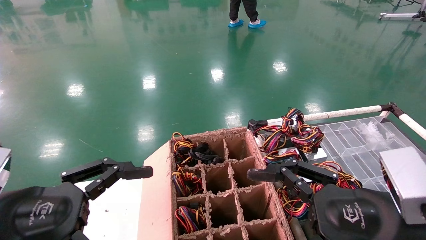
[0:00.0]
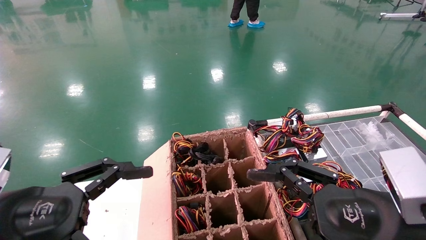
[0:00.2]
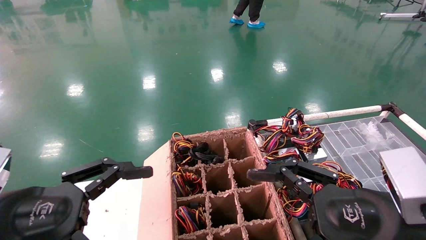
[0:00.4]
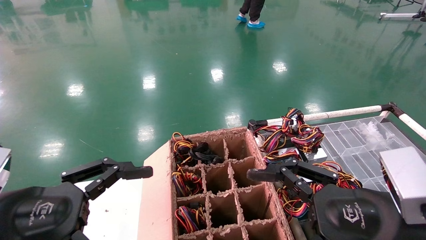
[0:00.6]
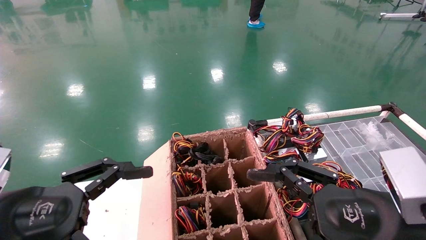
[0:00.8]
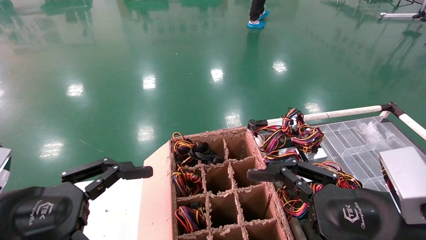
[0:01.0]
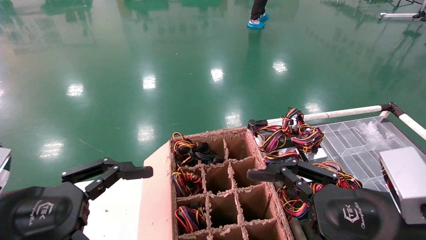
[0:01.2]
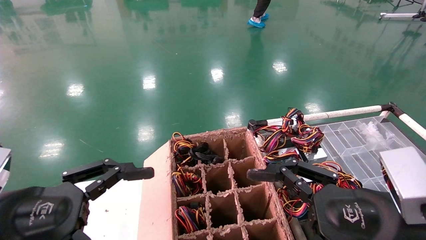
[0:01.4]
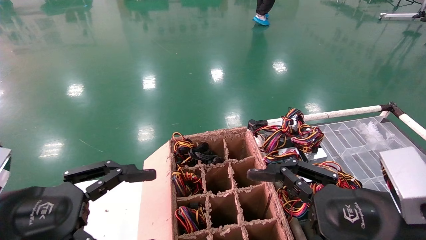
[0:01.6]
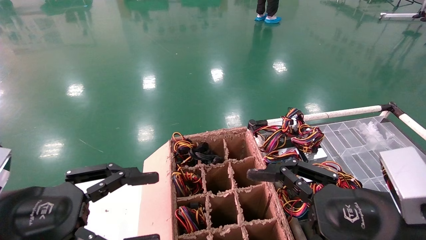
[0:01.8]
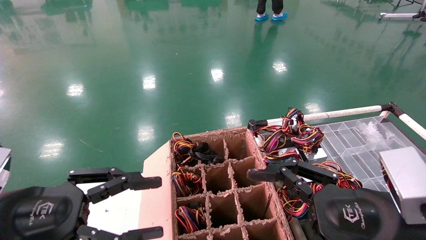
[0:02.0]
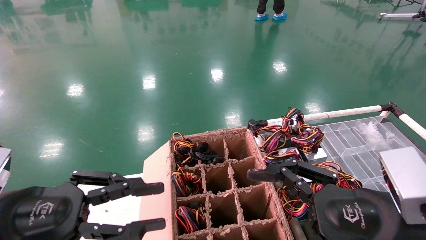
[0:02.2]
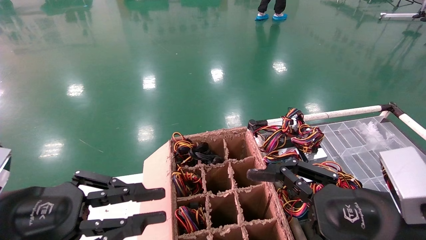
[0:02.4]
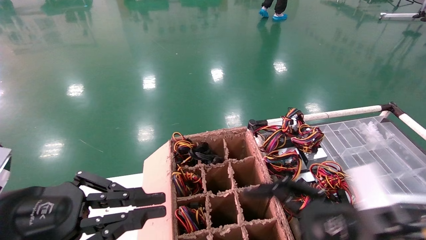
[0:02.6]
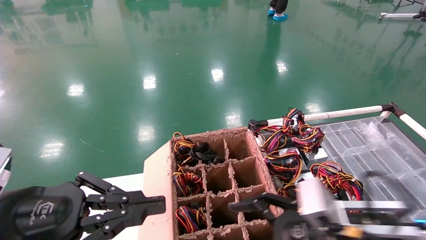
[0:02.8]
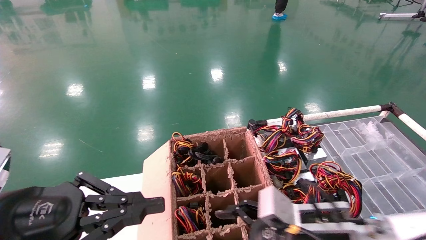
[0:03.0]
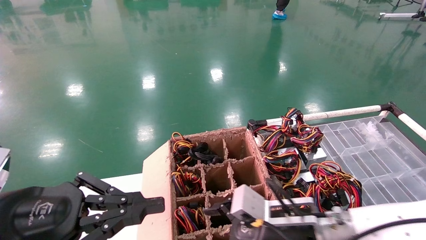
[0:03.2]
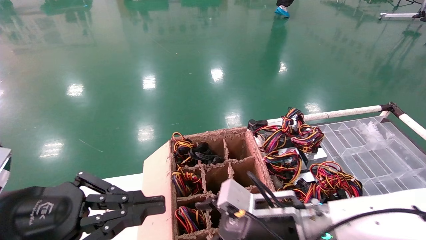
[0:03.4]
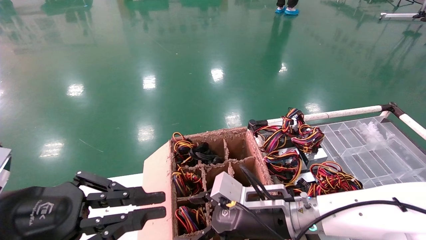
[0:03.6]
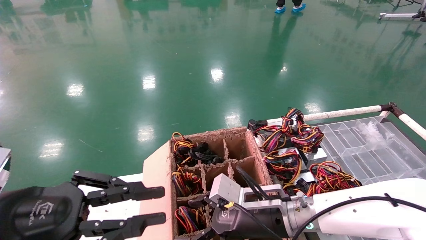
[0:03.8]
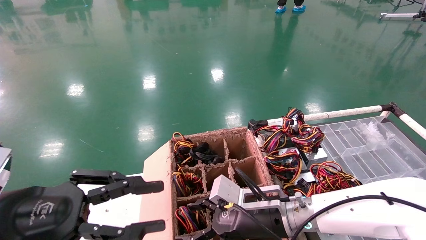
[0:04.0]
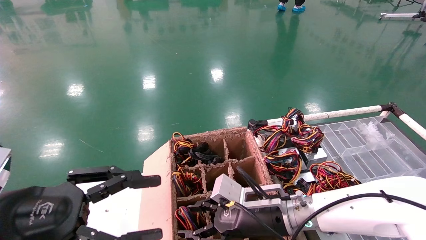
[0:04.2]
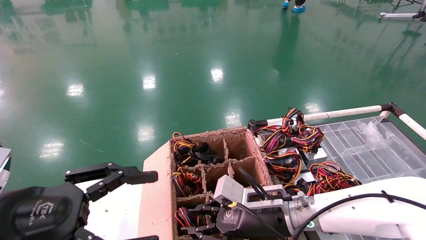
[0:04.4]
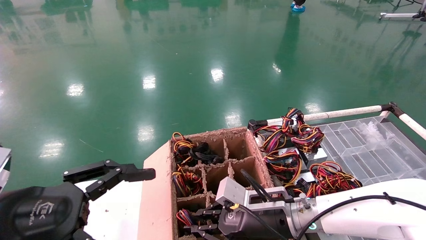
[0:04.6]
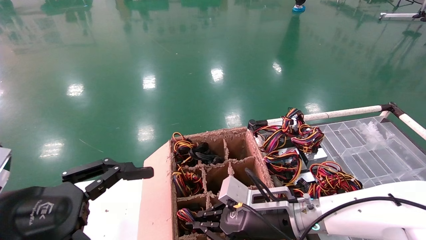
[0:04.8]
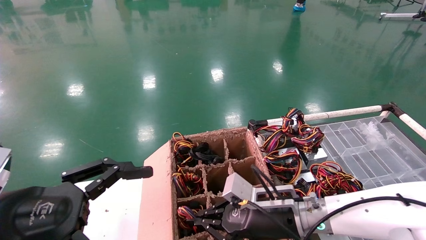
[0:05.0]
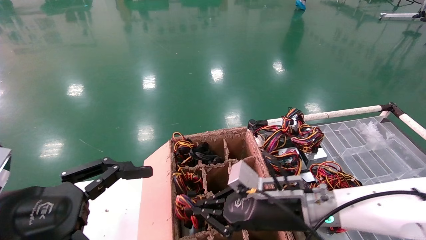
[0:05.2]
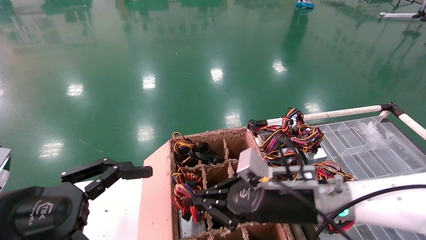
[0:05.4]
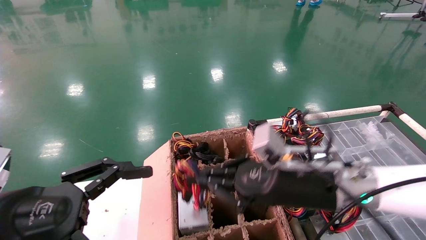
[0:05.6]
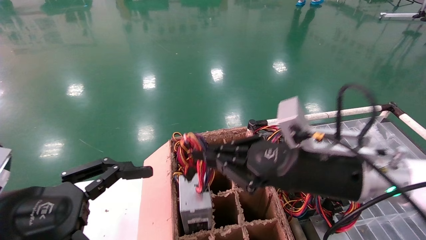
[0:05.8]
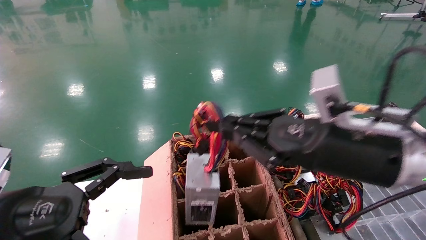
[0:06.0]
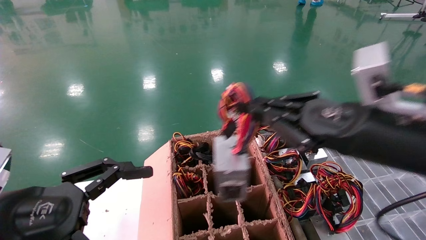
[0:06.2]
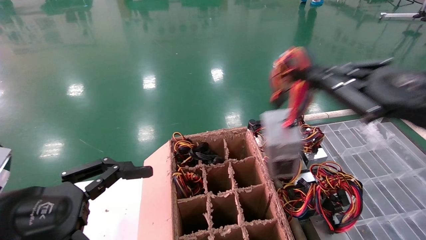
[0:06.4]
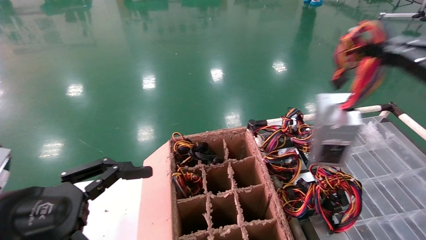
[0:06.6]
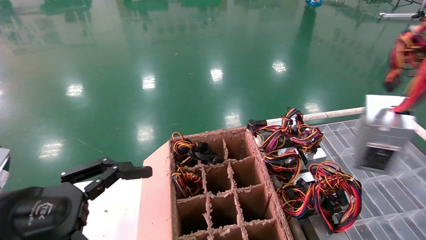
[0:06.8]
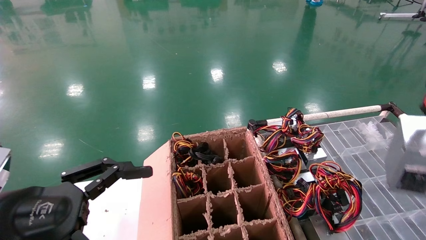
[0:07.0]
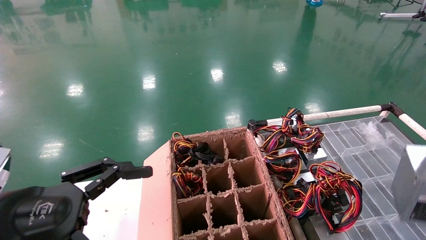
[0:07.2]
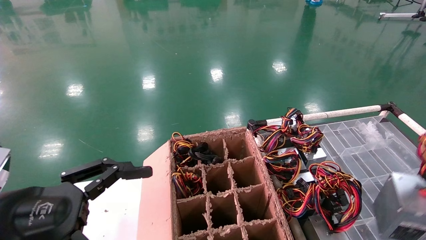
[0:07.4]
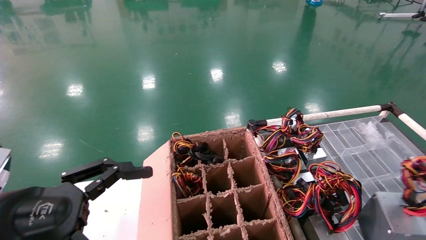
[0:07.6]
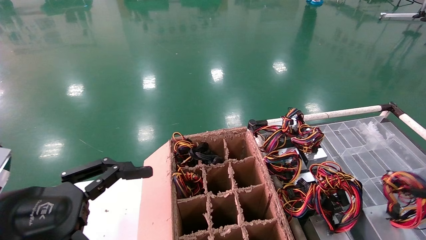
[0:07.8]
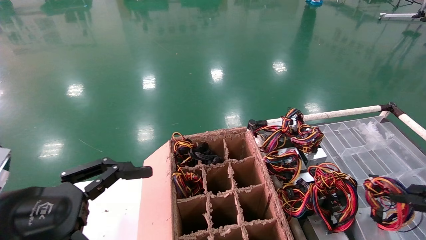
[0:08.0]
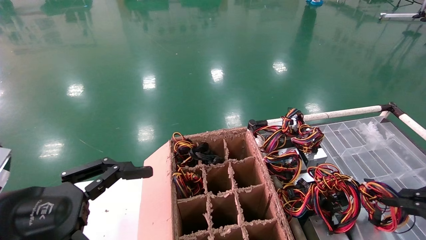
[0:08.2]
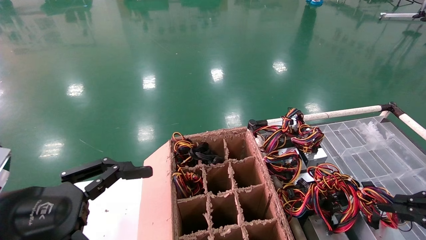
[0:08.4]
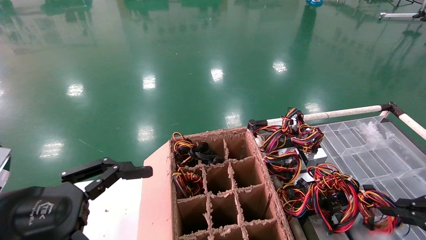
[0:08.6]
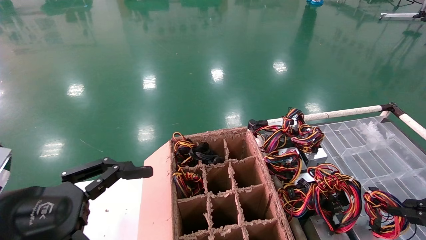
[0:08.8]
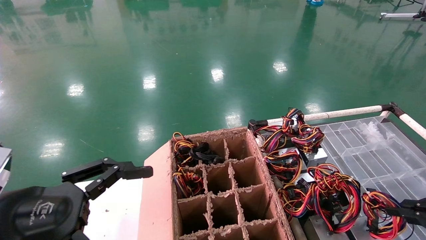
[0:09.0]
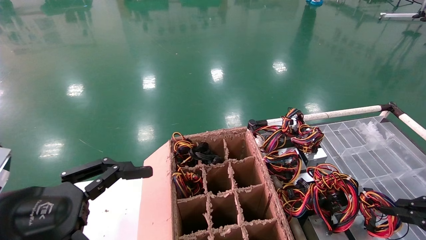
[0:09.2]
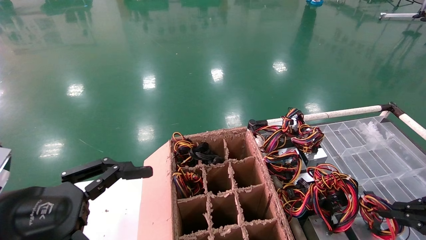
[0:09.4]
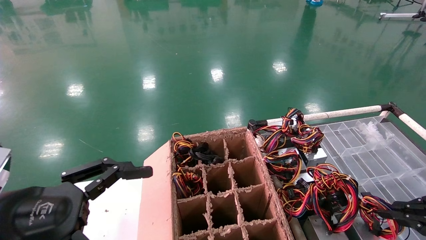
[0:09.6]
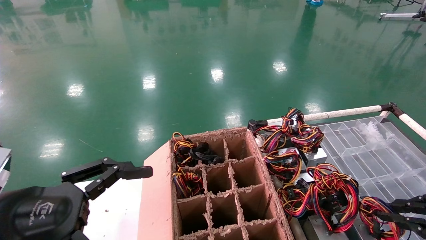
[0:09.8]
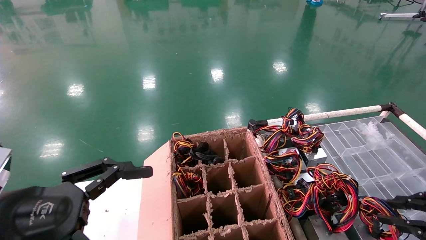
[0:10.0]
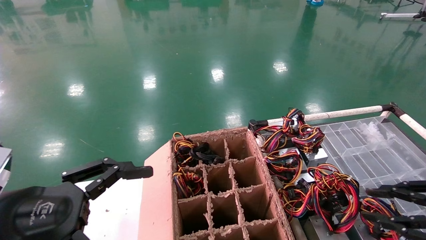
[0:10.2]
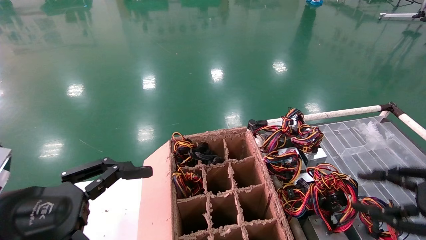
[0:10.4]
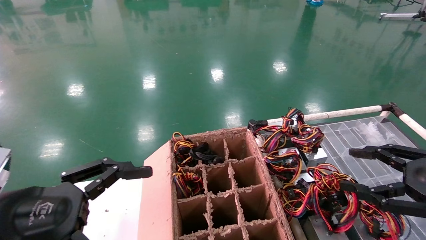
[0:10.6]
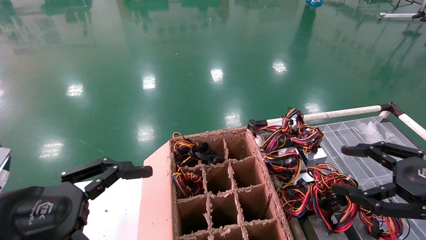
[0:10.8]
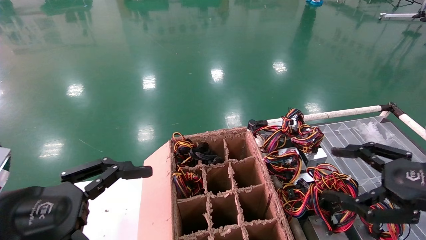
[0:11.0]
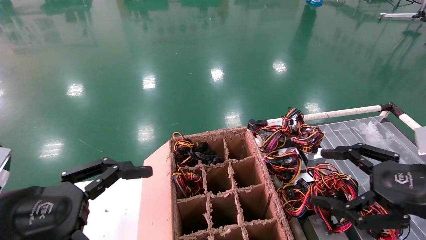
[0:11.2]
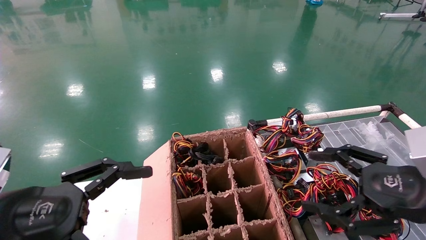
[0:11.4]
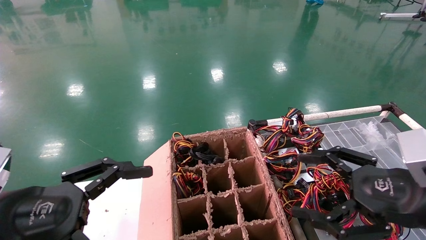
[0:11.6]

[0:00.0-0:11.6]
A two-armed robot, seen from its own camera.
Step, 0:02.8 to 0:04.8: Grab and lift the power supply from the large box.
Step, 0:05.0 to 0:10.0: Place the power supply on the operating table.
0:00.0 to 0:01.4: Neither gripper changes place.
0:01.4 to 0:02.8: The right gripper is displaced downward and forward by roughly 10 cm; the left gripper closes up.
0:02.8 to 0:04.4: The left gripper opens; the right gripper heads forward and to the left, covering some 15 cm, and closes up.
0:04.4 to 0:05.8: The left gripper opens up; the right gripper heads upward, backward and to the right, covering some 15 cm, and closes its fingers.
0:05.8 to 0:07.2: The right gripper shifts about 35 cm to the right and backward.
0:07.2 to 0:08.8: The right gripper travels downward and forward by roughly 10 cm.
0:08.8 to 0:10.2: The grippers make only small movements.
0:10.2 to 0:11.6: The right gripper travels to the left by some 10 cm, and opens its fingers.
